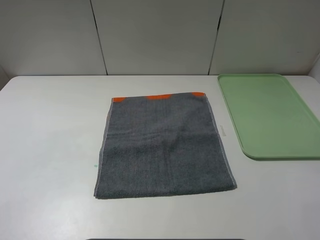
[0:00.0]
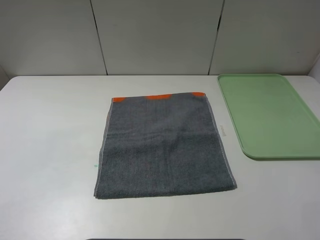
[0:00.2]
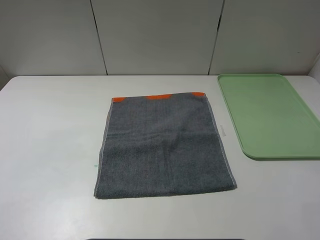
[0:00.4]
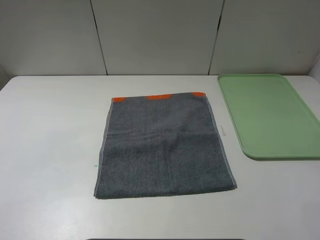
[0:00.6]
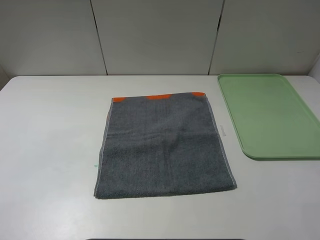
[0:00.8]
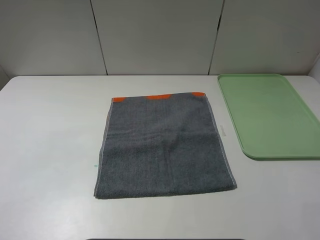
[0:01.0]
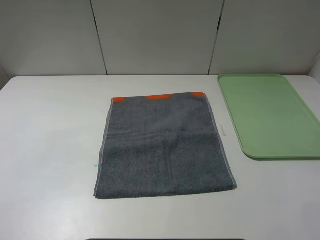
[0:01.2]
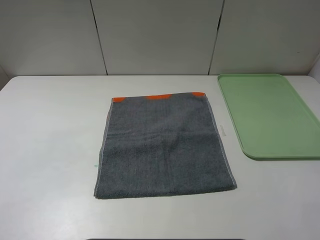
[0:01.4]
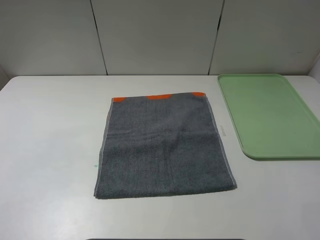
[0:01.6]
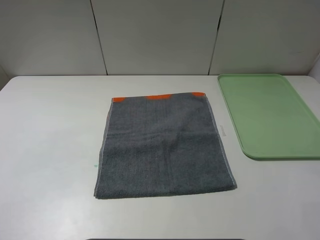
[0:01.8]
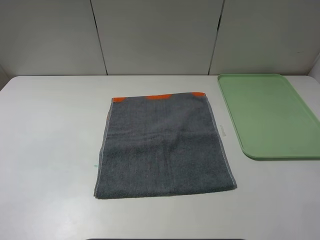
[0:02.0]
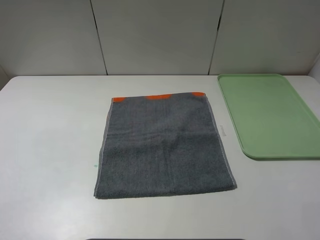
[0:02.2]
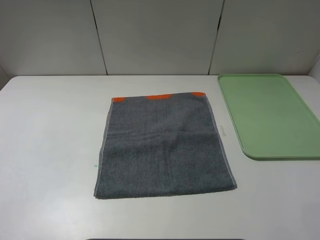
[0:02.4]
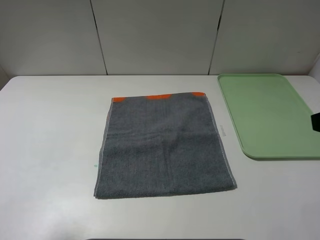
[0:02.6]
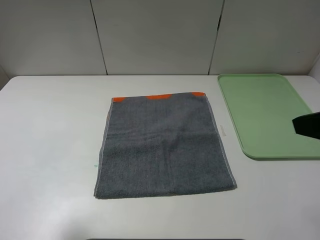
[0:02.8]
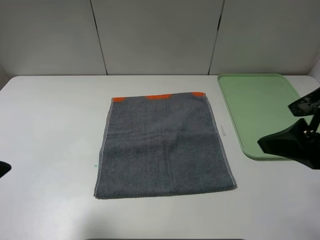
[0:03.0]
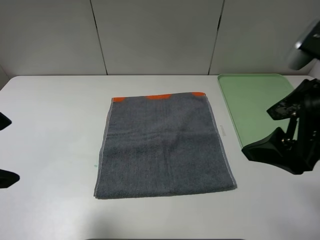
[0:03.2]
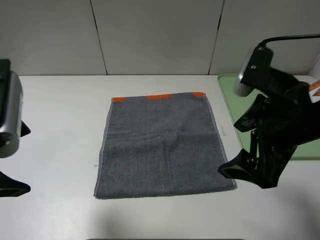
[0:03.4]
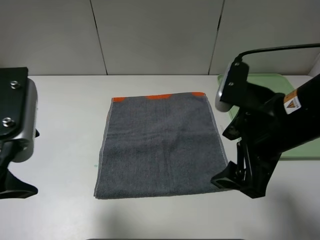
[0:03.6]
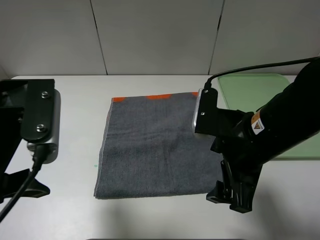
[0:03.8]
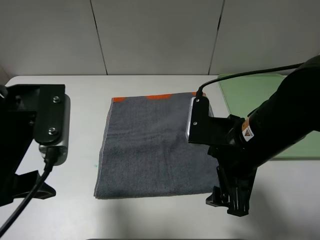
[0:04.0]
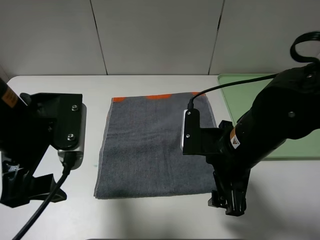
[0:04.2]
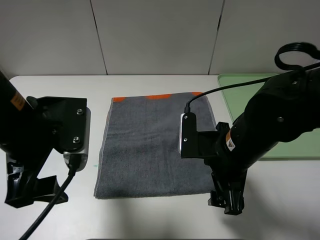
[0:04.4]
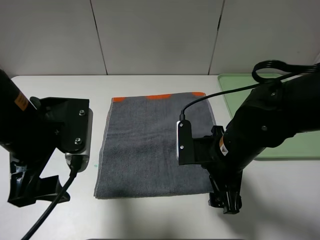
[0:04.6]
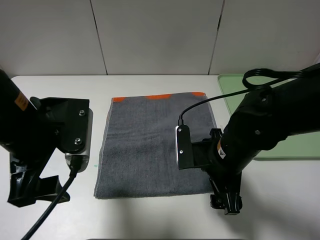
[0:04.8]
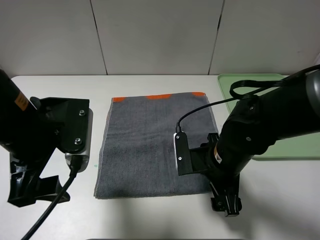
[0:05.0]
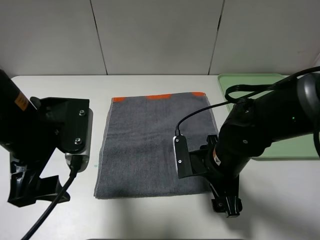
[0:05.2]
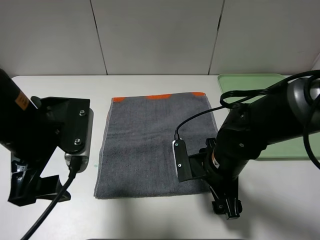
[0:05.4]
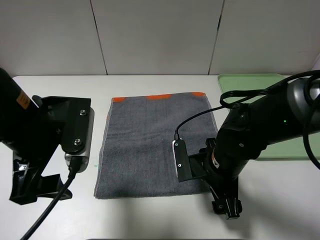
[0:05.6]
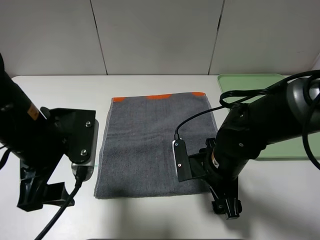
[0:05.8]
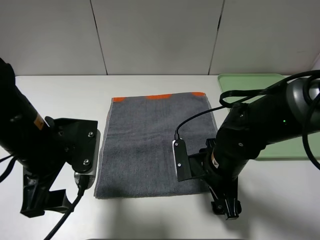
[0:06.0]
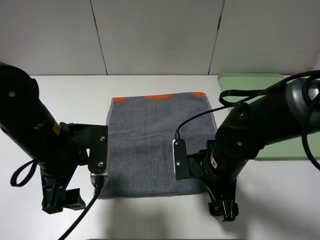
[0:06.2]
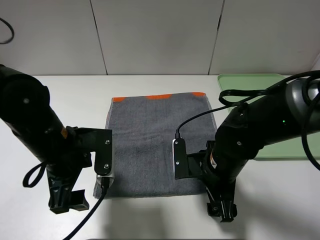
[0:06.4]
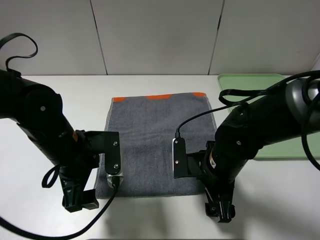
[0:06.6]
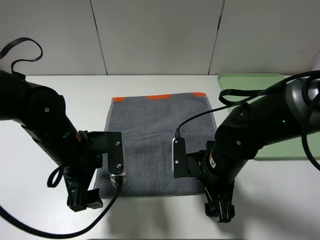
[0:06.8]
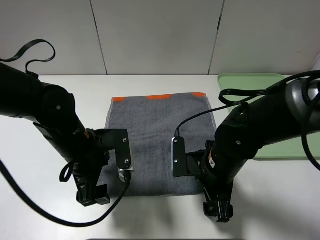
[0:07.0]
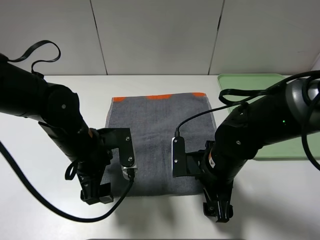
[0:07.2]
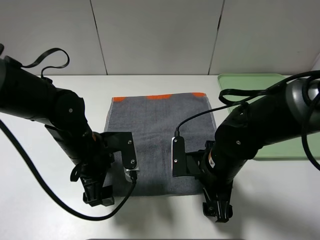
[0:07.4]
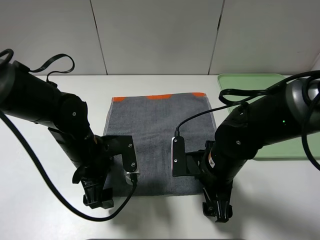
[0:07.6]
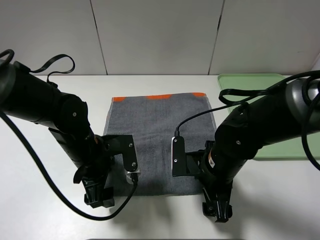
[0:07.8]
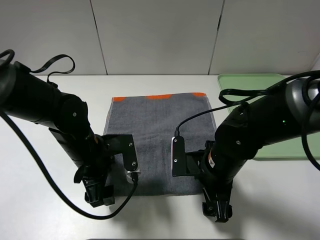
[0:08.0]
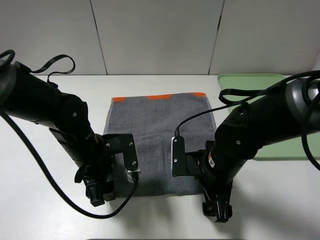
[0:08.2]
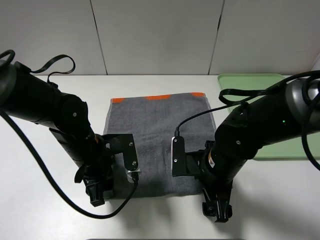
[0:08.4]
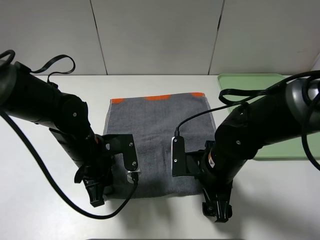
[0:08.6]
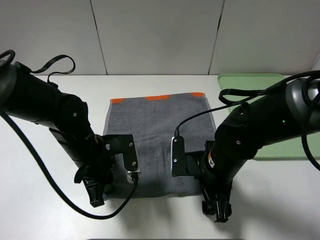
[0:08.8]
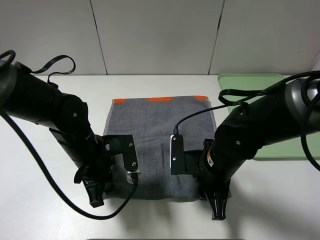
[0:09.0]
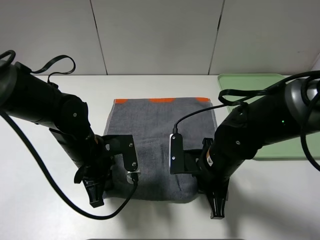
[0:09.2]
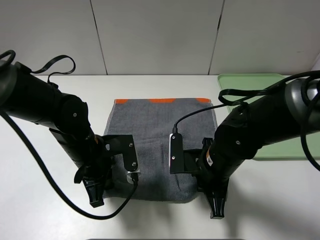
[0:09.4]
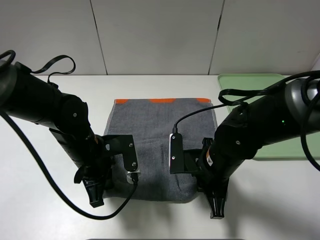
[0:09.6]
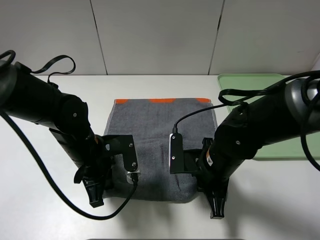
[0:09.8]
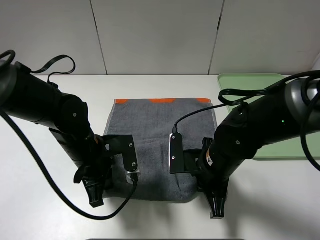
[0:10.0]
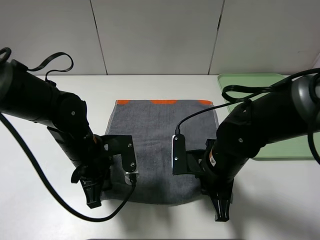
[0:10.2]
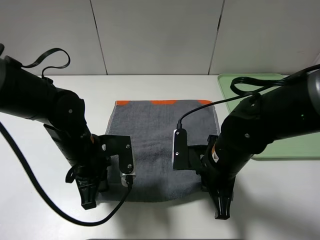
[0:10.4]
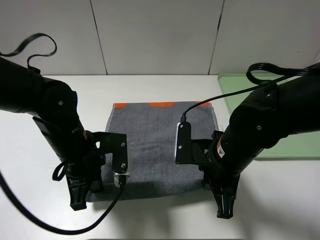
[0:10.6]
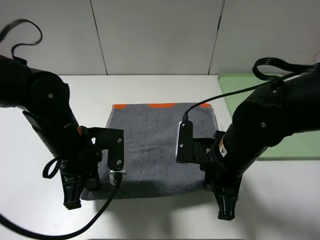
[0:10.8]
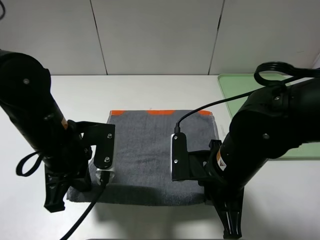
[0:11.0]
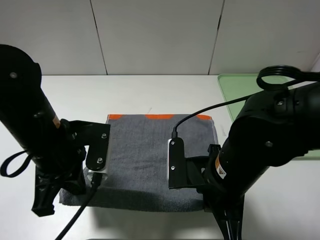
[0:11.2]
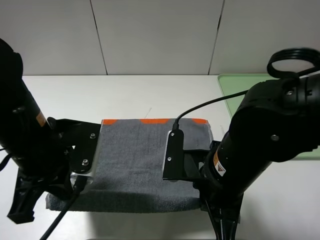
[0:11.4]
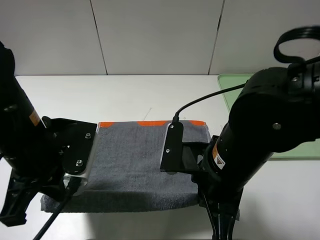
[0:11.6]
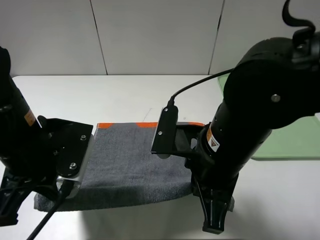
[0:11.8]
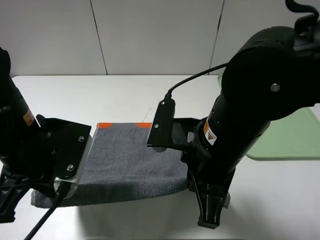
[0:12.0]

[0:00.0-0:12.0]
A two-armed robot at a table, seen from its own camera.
0:00.0 to 0:01.6: The two grippers keep their place.
0:01.6 to 0:03.0: The left gripper heads forward and to the right, covering some 15 cm, while the right gripper travels forward and to the left by roughly 15 cm.
0:03.0 to 0:04.4: The right gripper is displaced downward and to the left by roughly 15 cm. Meanwhile the left gripper is displaced downward, to the right and forward by approximately 15 cm.
0:04.4 to 0:06.0: The right gripper moves downward, roughly 5 cm.
0:06.0 to 0:07.6: The left gripper moves downward, roughly 10 cm.
0:07.6 to 0:09.0: The left gripper closes its fingers; the right gripper closes its fingers.
0:09.0 to 0:10.4: The right gripper closes up.
0:10.4 to 0:12.0: Both grippers travel together upward, some 10 cm.

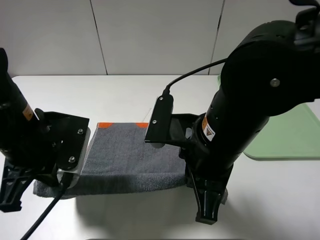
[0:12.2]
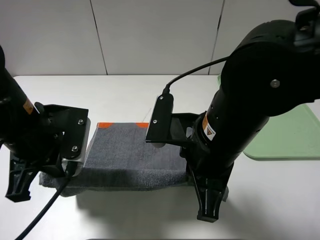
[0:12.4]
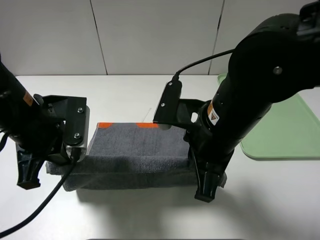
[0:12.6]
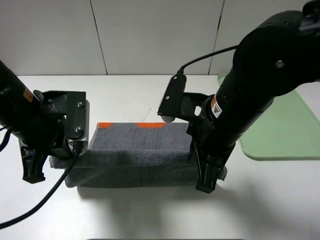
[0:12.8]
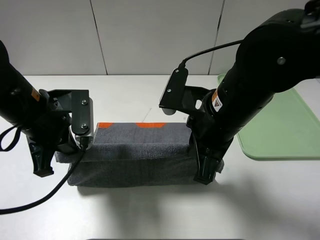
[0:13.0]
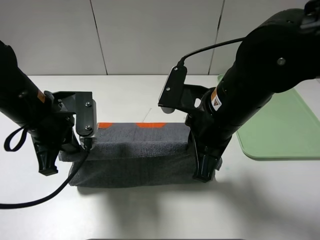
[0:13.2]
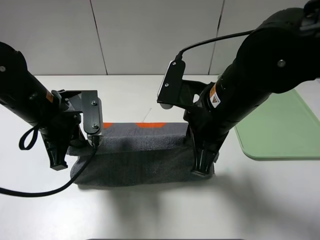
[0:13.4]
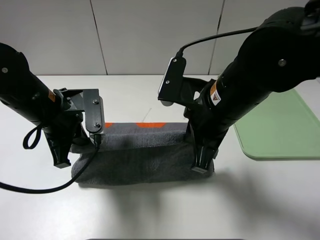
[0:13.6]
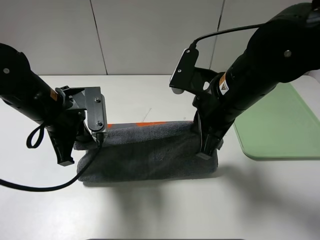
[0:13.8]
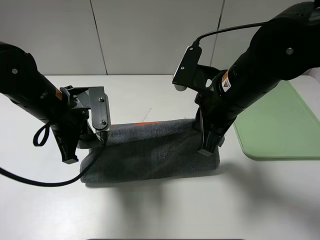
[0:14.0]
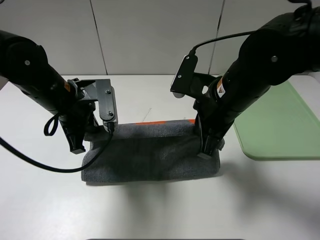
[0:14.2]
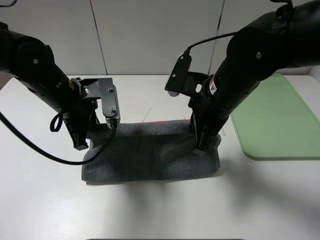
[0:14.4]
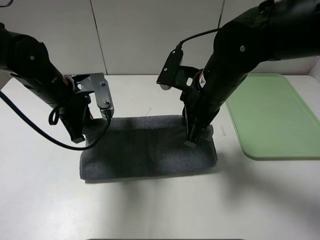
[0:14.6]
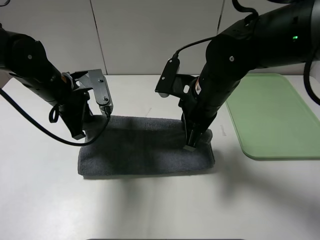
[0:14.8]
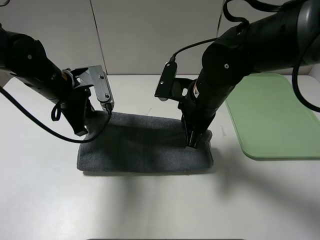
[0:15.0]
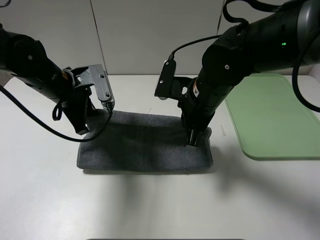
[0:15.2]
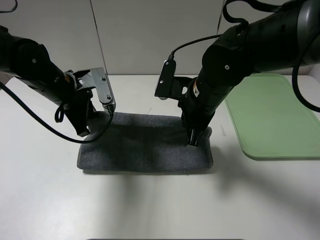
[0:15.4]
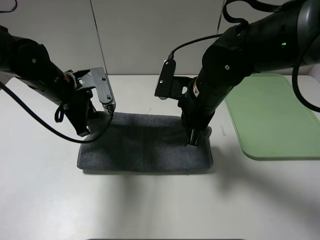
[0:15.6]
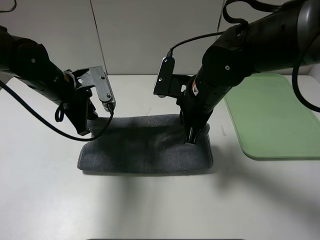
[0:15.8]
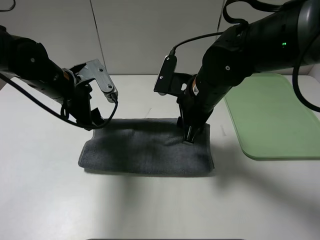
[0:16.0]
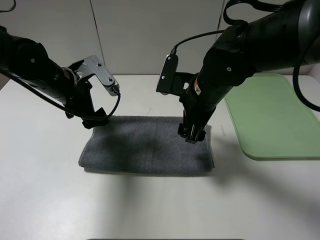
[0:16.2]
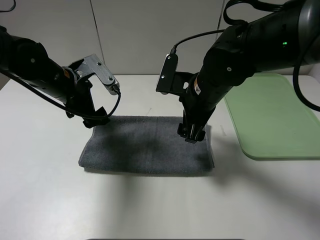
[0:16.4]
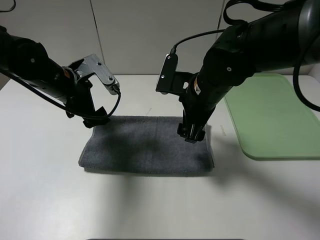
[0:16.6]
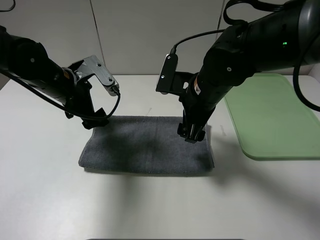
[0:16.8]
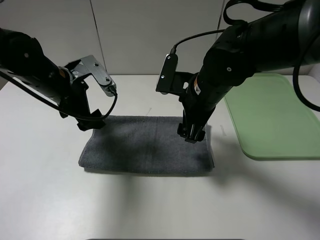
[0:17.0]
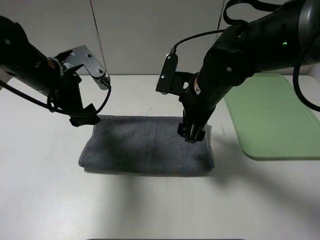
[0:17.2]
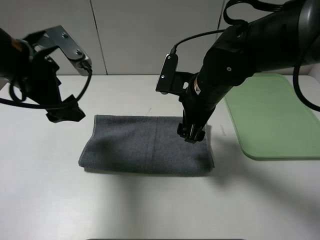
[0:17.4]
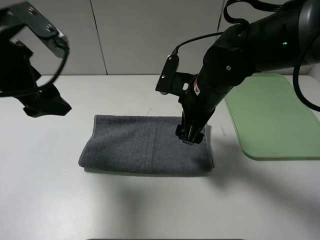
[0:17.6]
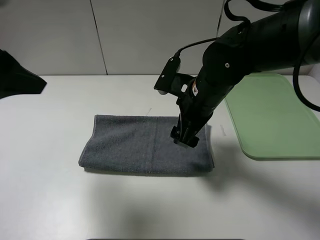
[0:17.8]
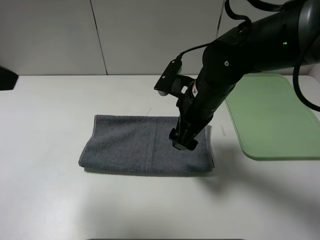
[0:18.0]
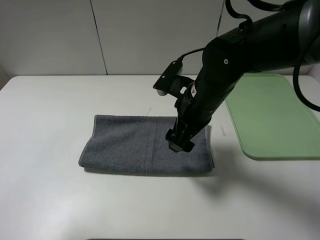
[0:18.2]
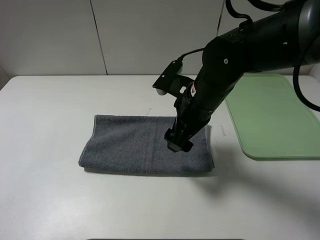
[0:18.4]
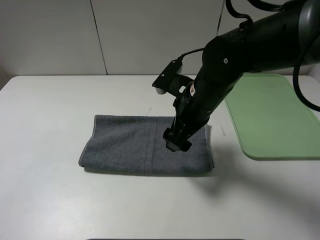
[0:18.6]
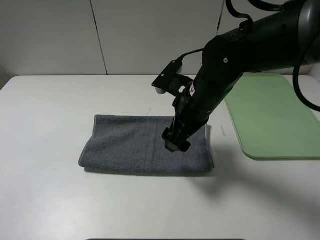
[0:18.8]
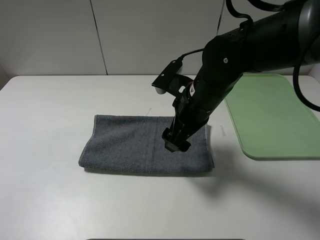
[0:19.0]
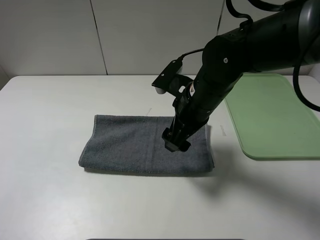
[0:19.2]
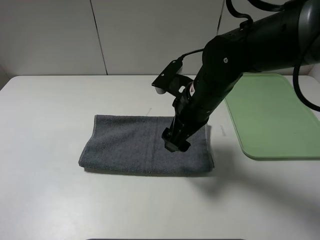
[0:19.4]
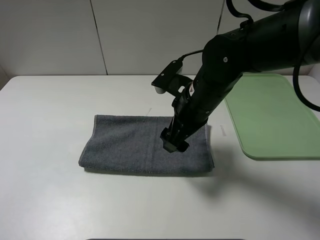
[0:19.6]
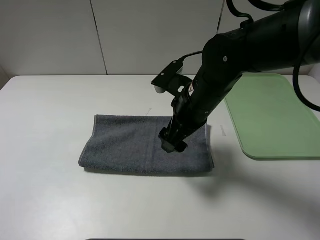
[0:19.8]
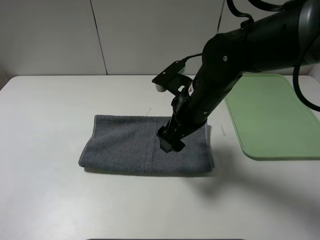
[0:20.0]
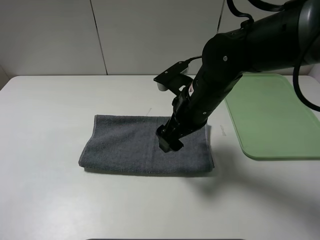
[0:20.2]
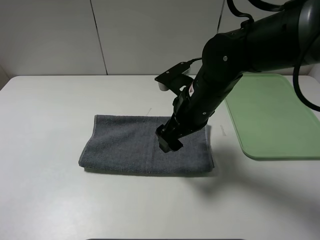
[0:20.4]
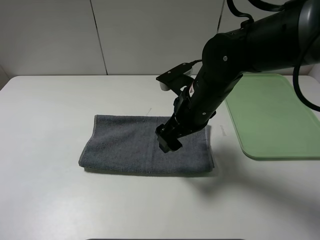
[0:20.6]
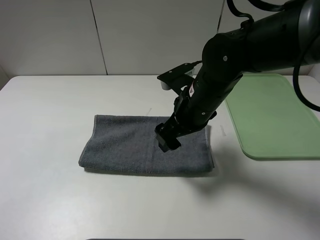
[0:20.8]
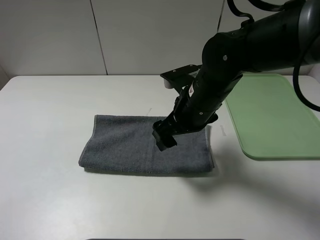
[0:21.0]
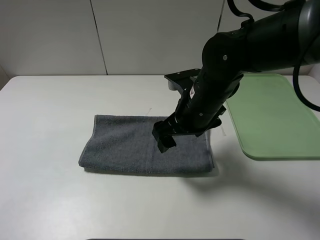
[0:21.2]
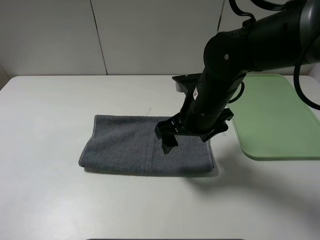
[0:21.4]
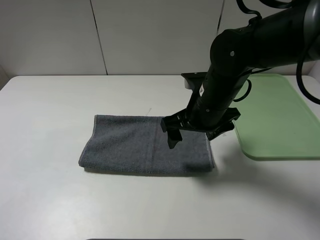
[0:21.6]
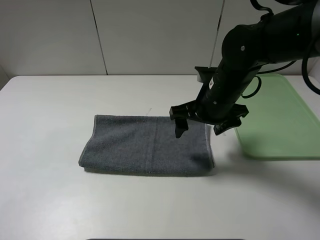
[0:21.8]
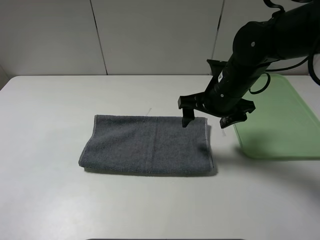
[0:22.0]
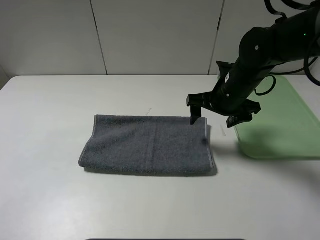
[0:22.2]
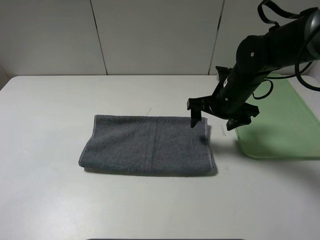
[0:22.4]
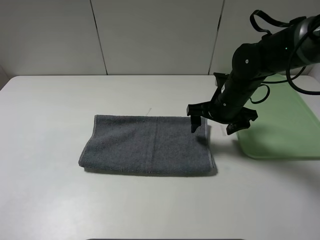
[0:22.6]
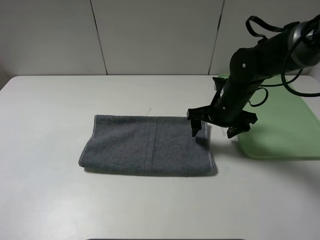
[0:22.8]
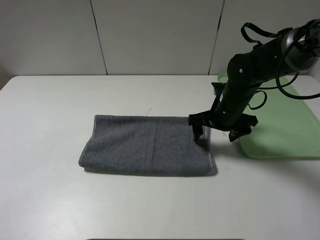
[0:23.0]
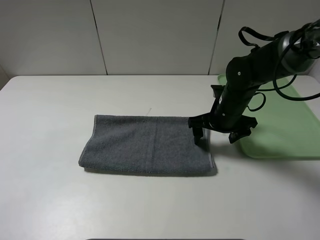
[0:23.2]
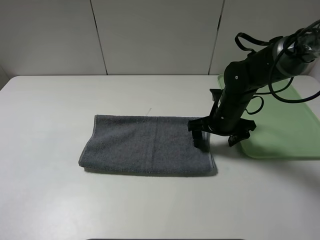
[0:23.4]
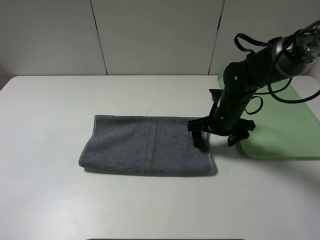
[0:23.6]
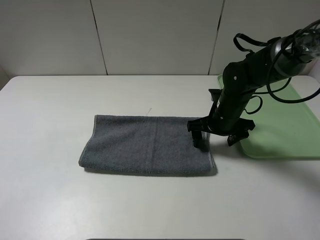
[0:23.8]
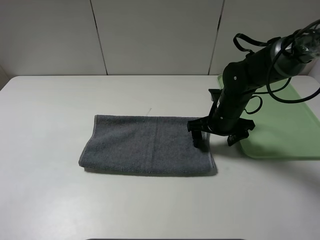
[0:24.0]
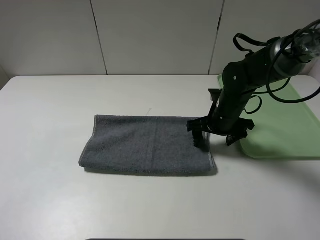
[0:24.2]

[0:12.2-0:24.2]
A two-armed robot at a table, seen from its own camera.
Step, 0:12.2 to 0:16.0: Fold the grey towel upwards.
0:12.2 to 0:13.8: The two grippers go roughly 5 cm forward.
0:13.8 to 0:15.2: The right gripper shifts by roughly 5 cm. Meanwhile the left gripper goes about 5 cm forward.
0:15.2 to 0:16.6: The left gripper opens up. Meanwhile the right gripper opens up.
0:16.6 to 0:18.2: The left gripper shifts some 30 cm backward, upward and to the left.
0:18.2 to 0:19.8: The left gripper is displaced downward and backward by roughly 10 cm.
0:21.2 to 0:22.6: The right gripper travels to the right and forward by some 10 cm.
0:22.6 to 0:24.2: The grippers move only a little.
